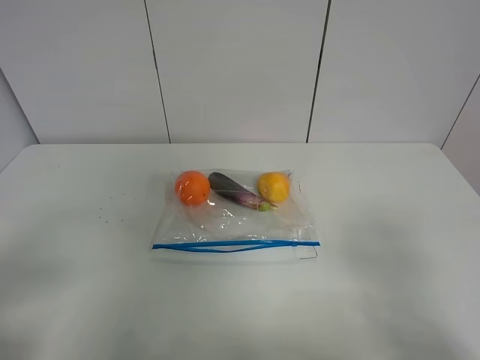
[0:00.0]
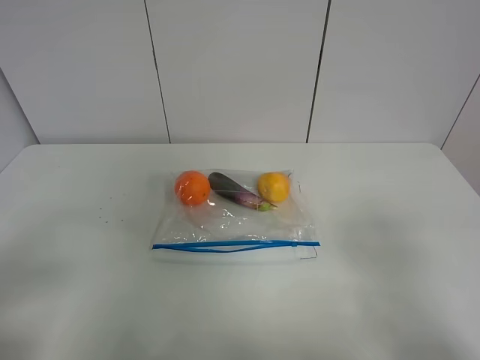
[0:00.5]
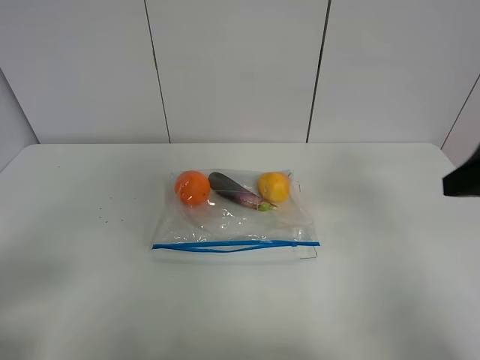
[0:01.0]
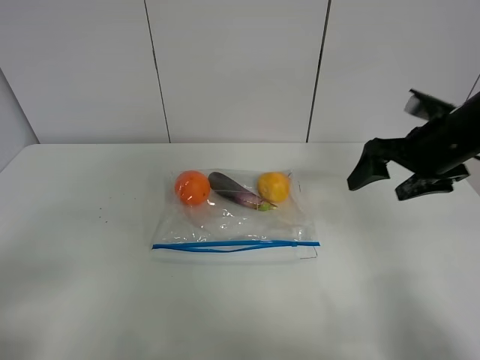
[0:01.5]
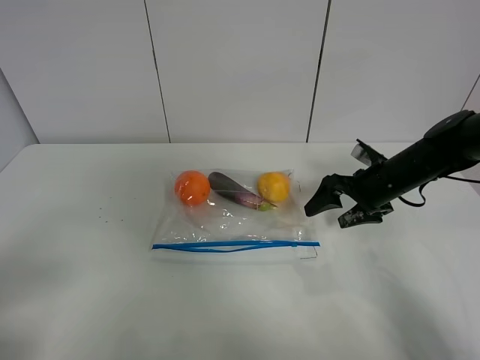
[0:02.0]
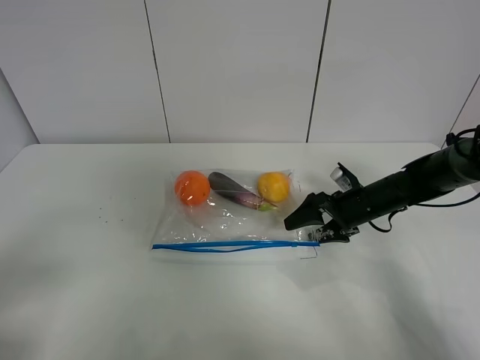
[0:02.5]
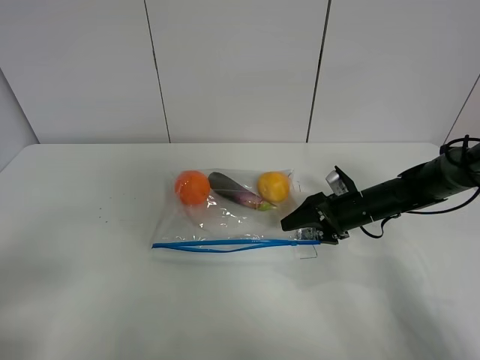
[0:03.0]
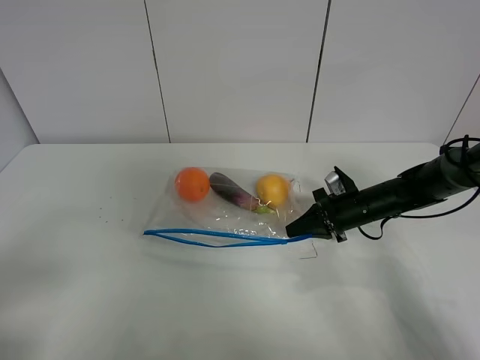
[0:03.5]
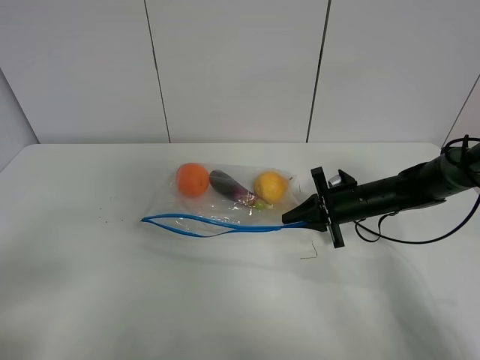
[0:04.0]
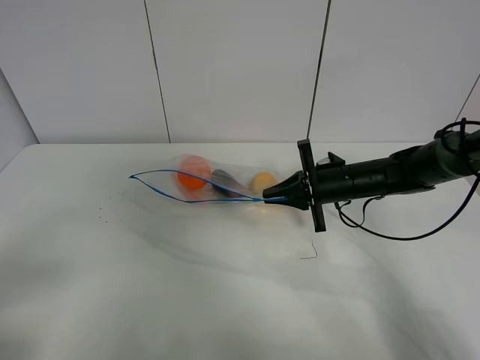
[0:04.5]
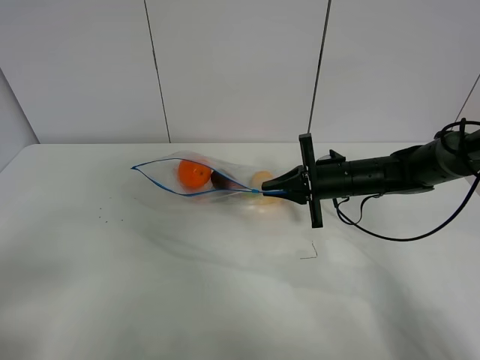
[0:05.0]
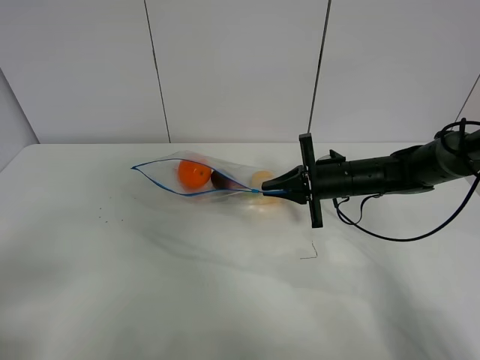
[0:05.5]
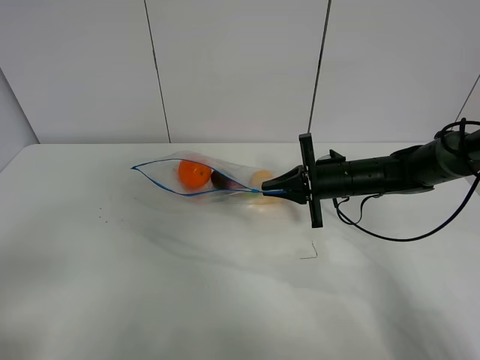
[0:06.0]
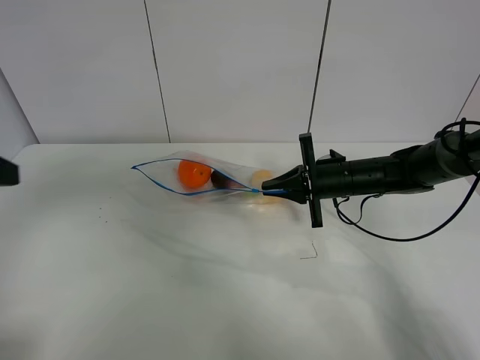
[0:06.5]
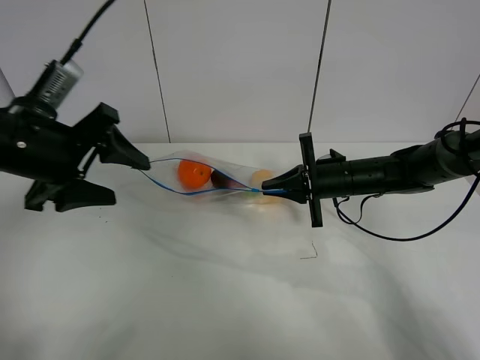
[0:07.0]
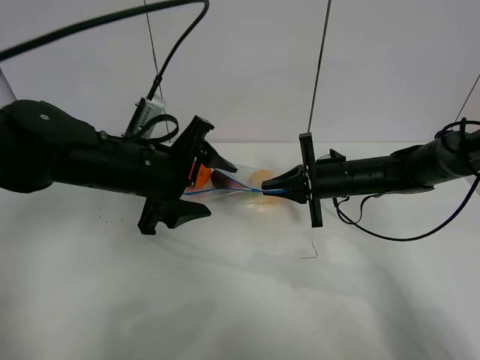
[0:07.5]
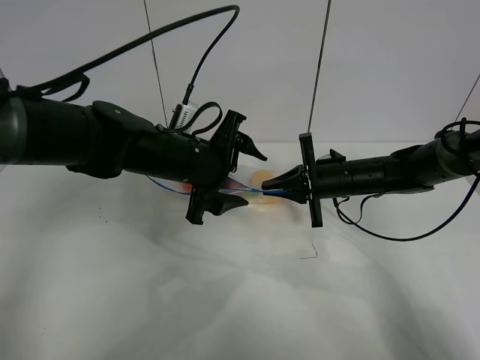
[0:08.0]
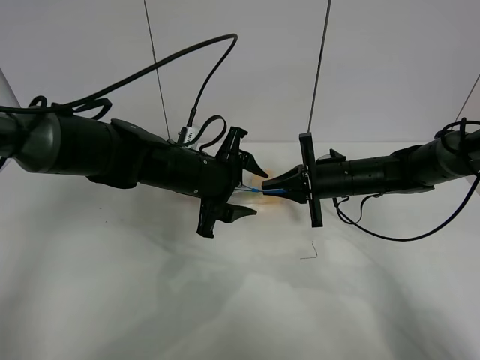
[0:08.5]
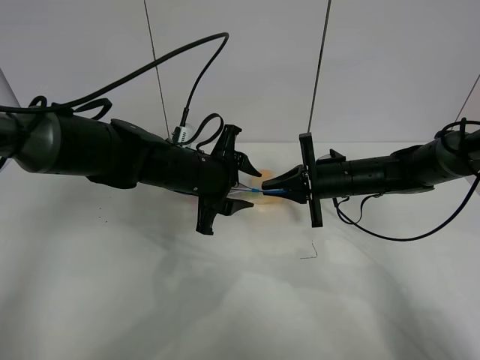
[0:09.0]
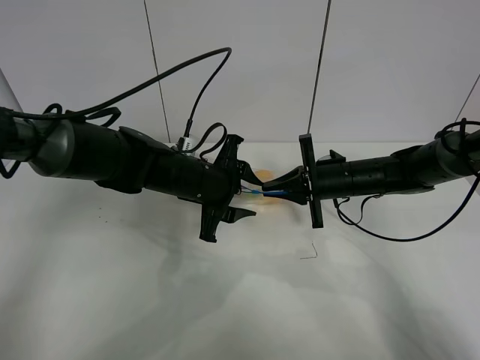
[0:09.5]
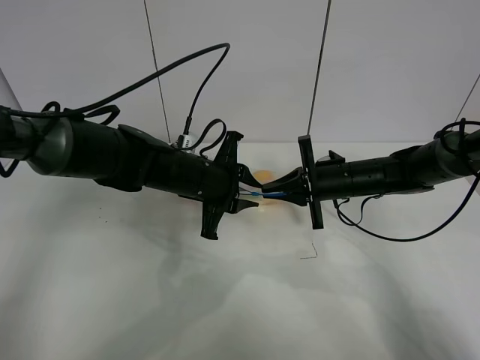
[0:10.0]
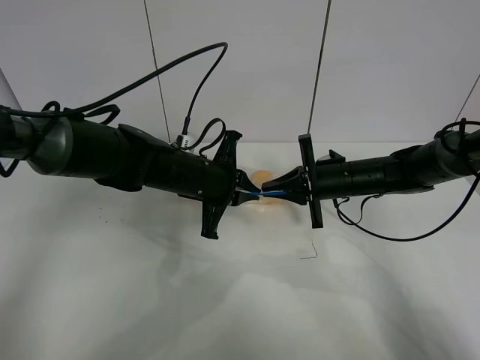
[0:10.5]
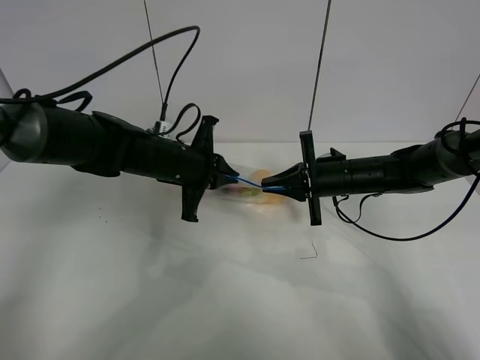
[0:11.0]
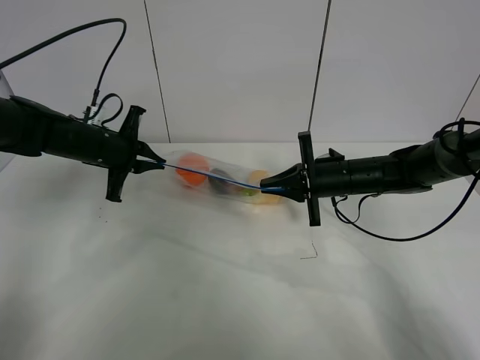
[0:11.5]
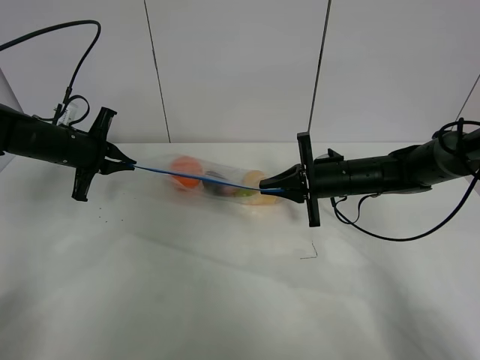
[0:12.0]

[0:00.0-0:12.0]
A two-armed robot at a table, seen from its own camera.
Step, 0:00.0 to 0:03.5: Grasp the fruit bag with right gripper.
Step, 0:04.0 to 0:05.0: Lift the fruit bag with your right gripper.
0:00.0 to 0:02.0: The right gripper moves forward and downward, some 40 cm.
0:02.0 to 0:04.0: The right gripper moves downward, approximately 5 cm, and closes.
0:04.0 to 0:06.0: The right gripper changes place by some 5 cm.
0:06.0 to 0:08.0: The left gripper is displaced forward and to the right by some 40 cm.
0:08.0 to 0:10.0: The left gripper closes up.
0:10.0 to 0:12.0: The left gripper travels to the left by approximately 20 cm, and closes.

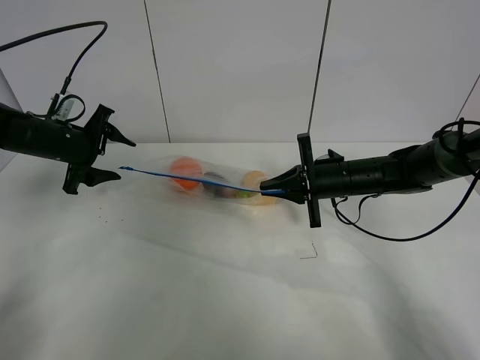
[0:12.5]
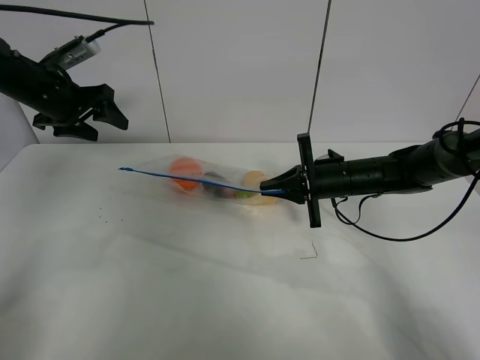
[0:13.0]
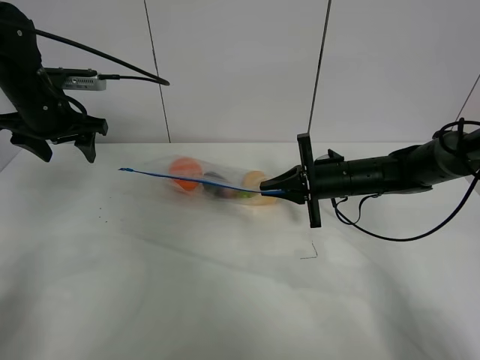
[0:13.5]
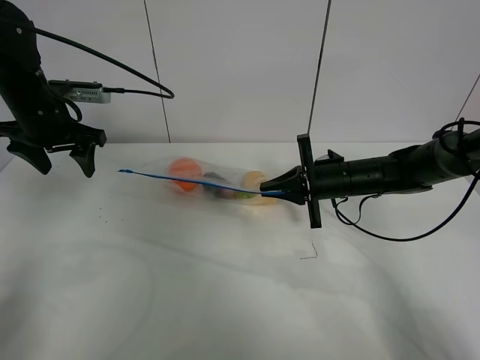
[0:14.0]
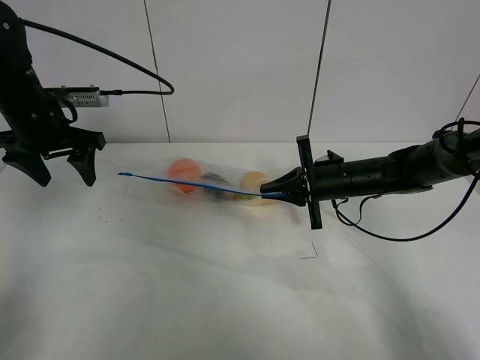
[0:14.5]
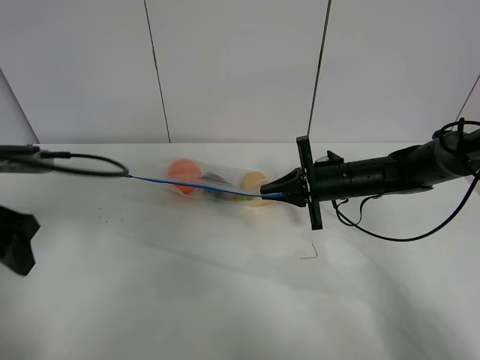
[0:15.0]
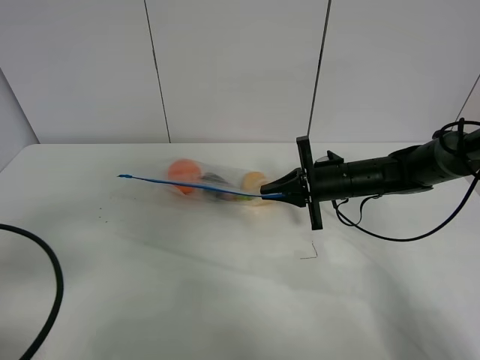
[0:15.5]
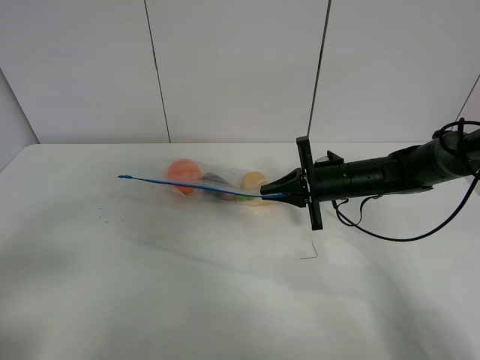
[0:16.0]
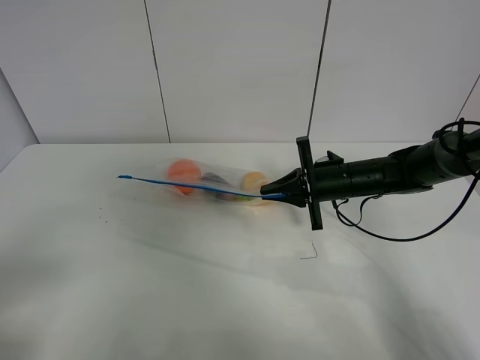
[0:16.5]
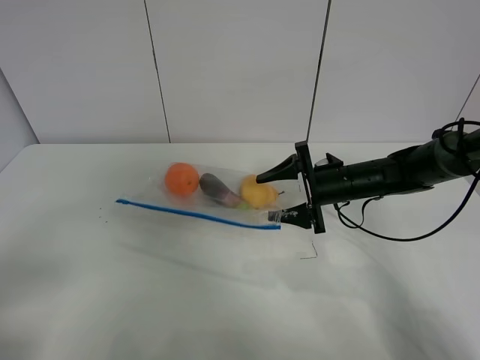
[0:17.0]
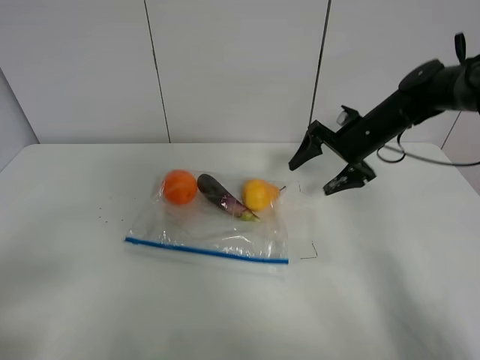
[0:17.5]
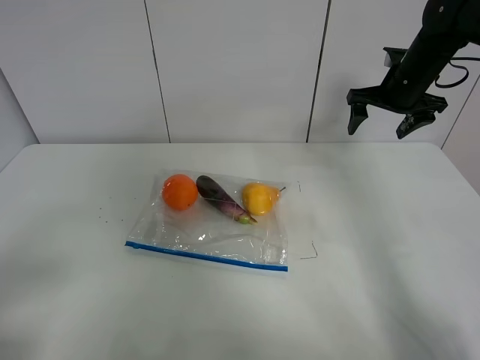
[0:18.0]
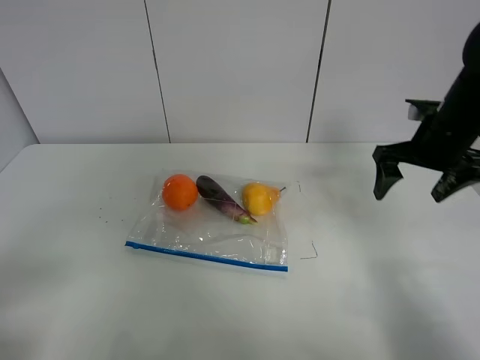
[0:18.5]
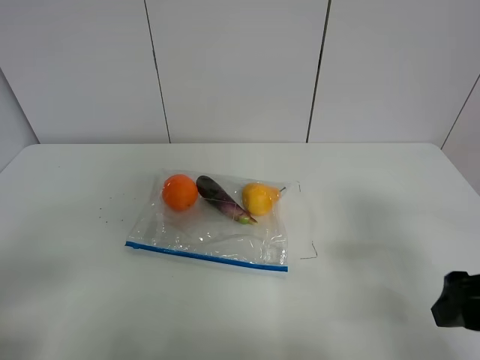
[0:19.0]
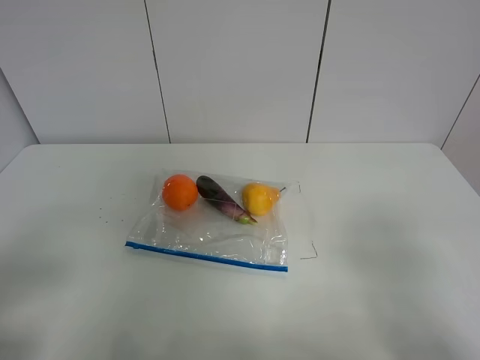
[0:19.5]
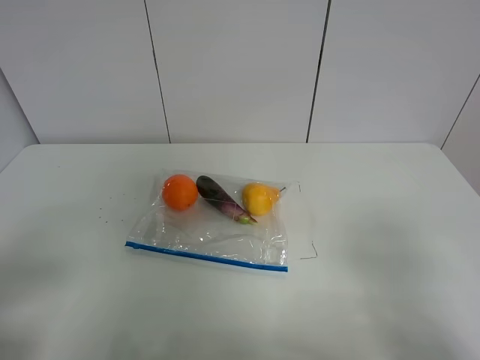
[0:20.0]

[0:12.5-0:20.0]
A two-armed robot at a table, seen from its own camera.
0:12.5 to 0:14.5: The left gripper moves upward, approximately 5 cm.
0:14.5 to 0:16.5: The left gripper shifts approximately 35 cm backward.
0:16.5 to 0:18.0: The right gripper heads upward, forward and to the right, covering approximately 20 cm, and opens up.
0:18.0 to 0:20.0: The right gripper moves backward, some 50 cm.

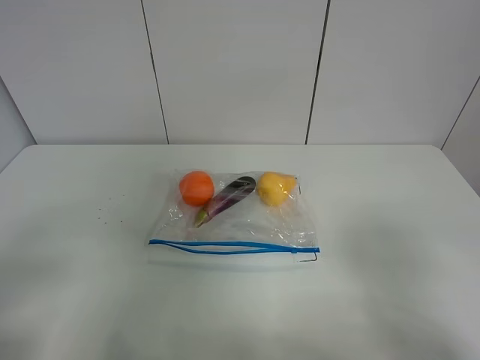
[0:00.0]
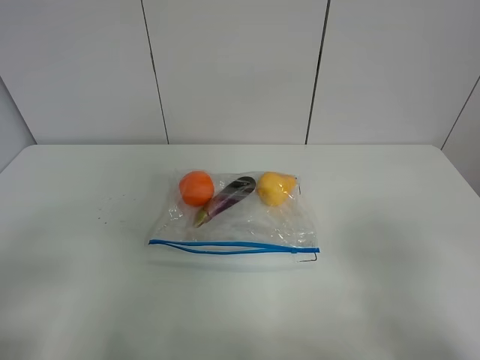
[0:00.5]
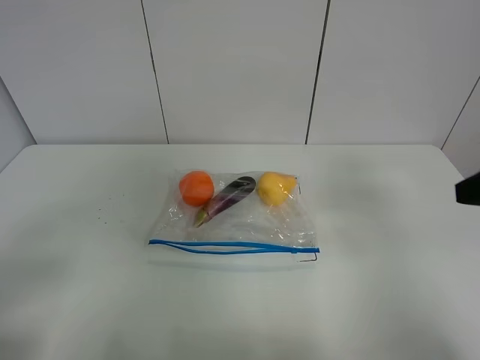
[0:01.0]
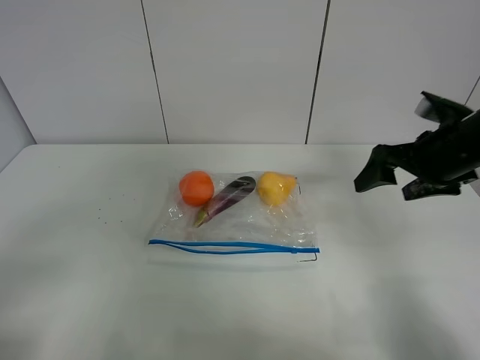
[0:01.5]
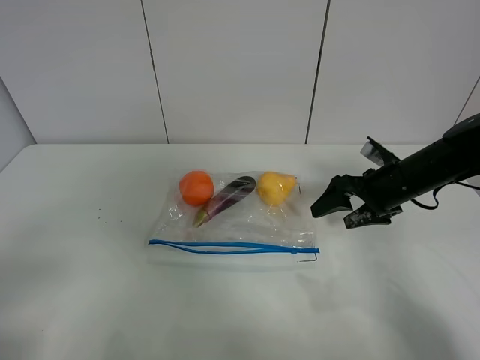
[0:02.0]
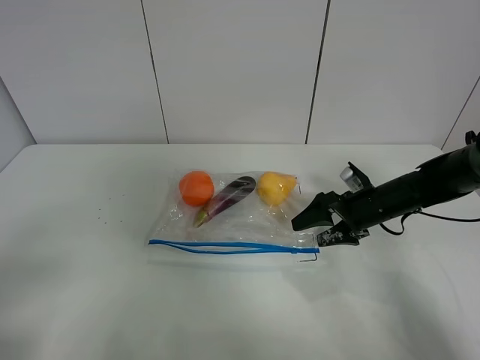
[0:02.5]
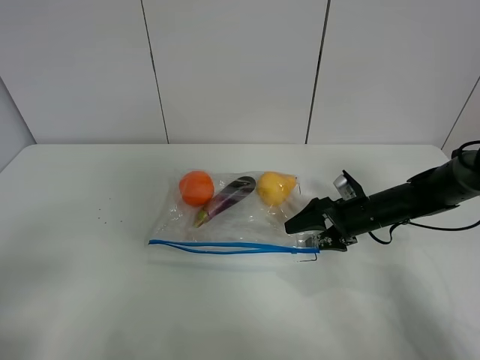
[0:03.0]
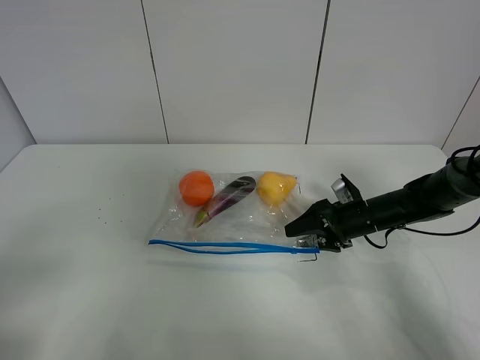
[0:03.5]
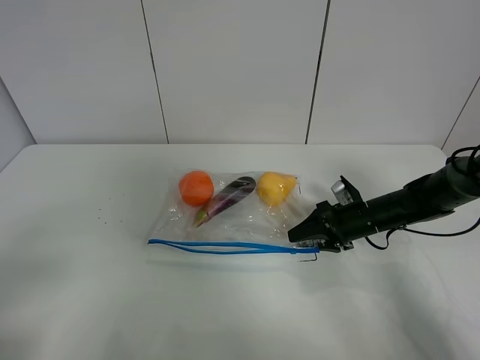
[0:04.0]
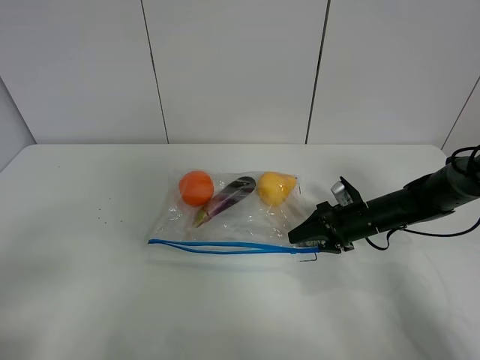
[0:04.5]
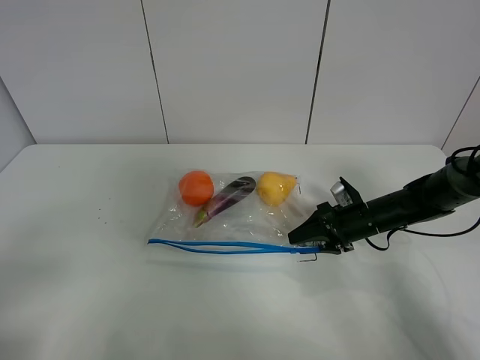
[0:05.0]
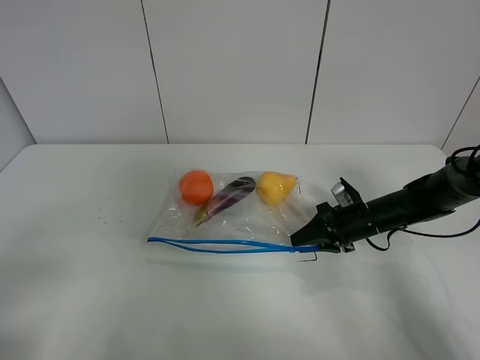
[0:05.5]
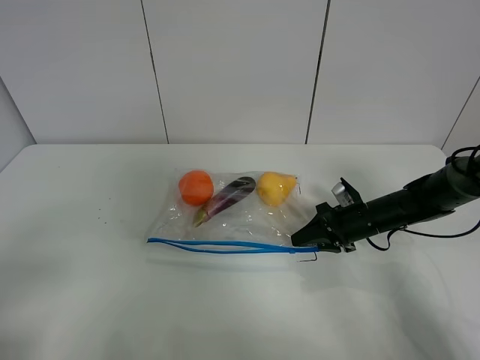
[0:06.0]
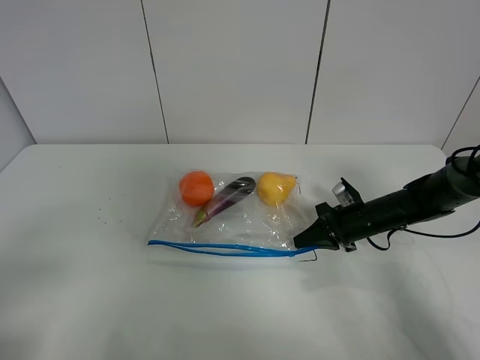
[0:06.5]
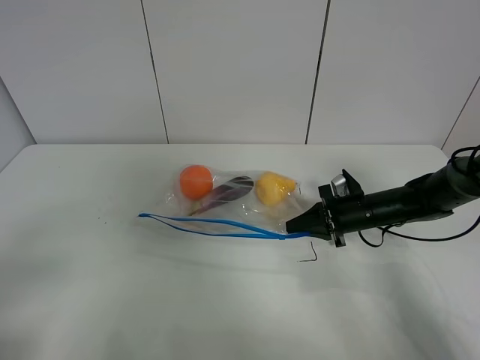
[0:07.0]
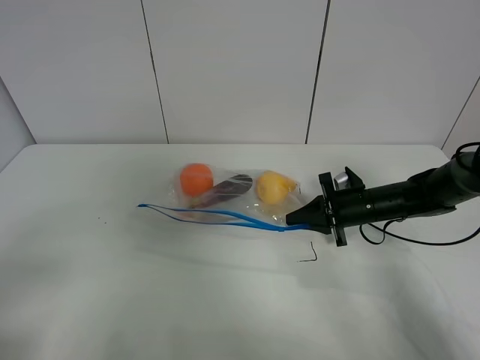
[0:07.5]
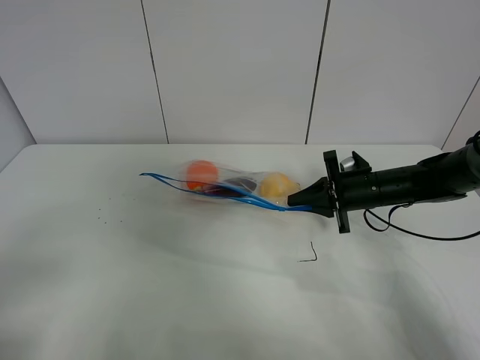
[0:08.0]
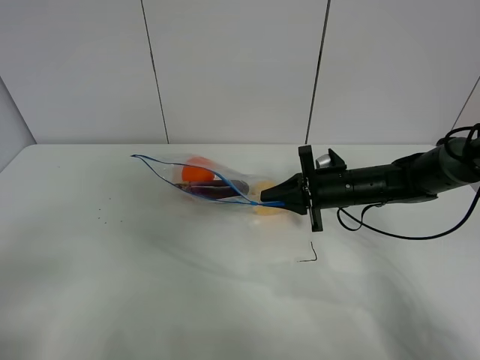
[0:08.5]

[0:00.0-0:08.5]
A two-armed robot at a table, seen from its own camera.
Step, 0:00.0 to 0:06.0: Grasp the fruit bag with right gripper.
0:00.0 to 0:02.0: The right gripper is displaced forward by roughly 35 cm.
0:02.0 to 0:04.0: The right gripper moves downward, approximately 10 cm, and closes up.
0:04.0 to 0:06.5: The right gripper closes.
0:06.5 to 0:08.5: The right gripper is displaced upward and to the left by some 10 cm.
